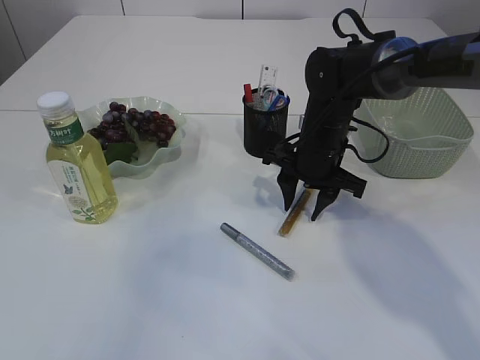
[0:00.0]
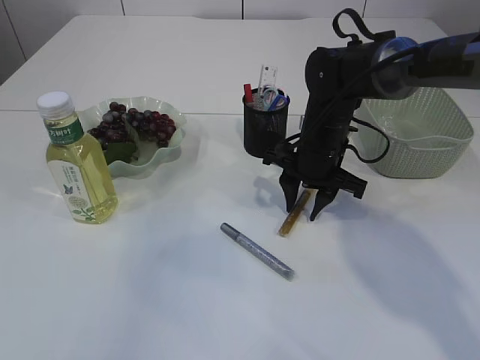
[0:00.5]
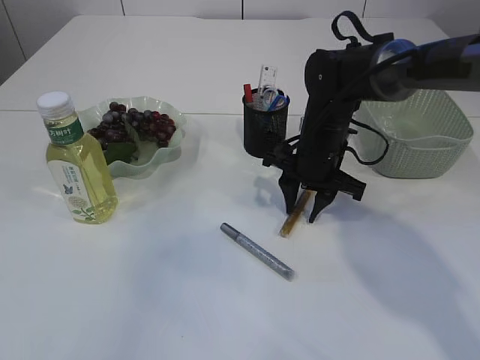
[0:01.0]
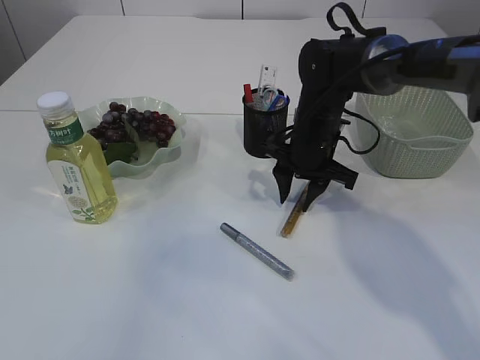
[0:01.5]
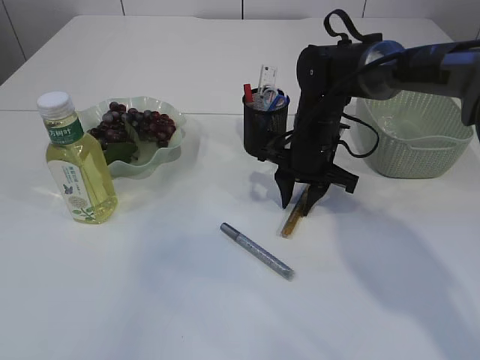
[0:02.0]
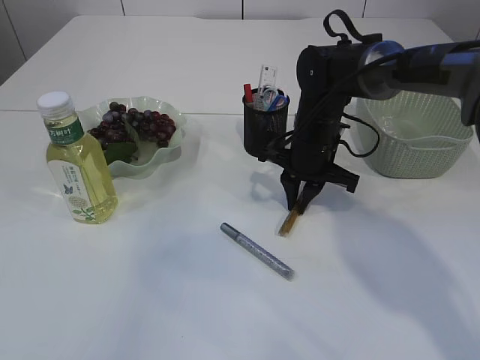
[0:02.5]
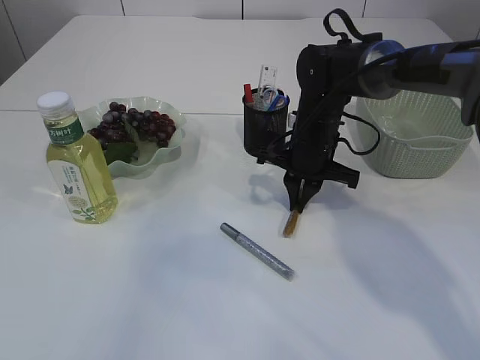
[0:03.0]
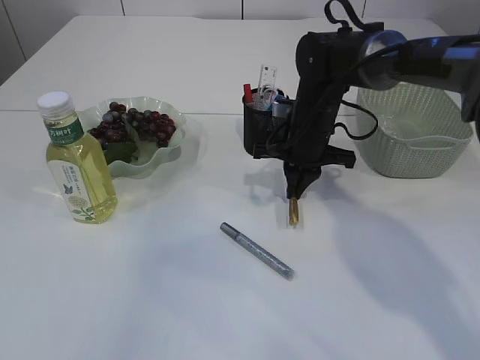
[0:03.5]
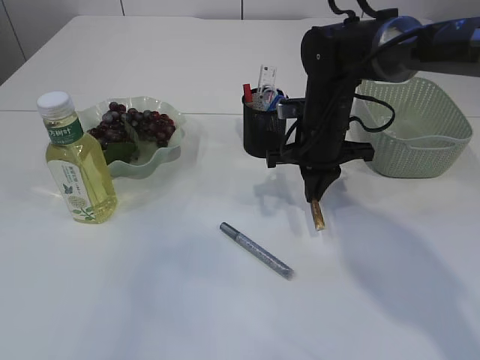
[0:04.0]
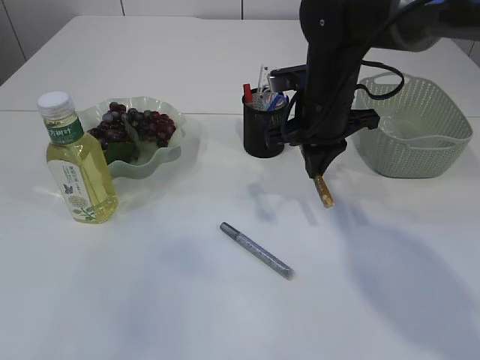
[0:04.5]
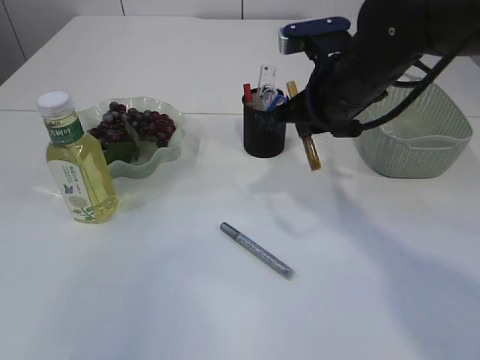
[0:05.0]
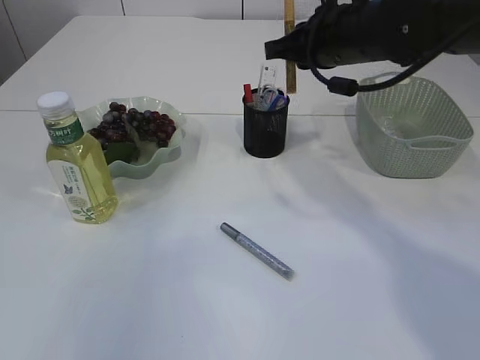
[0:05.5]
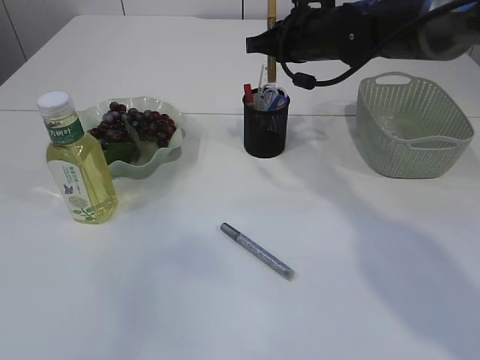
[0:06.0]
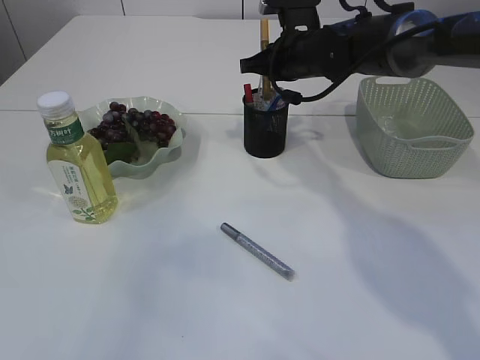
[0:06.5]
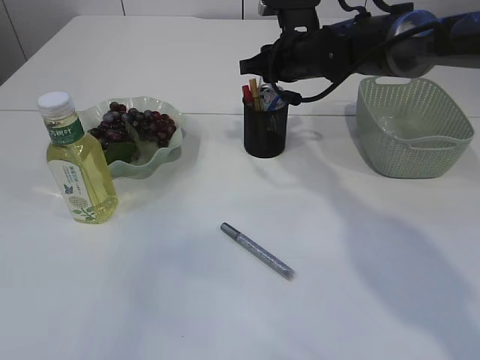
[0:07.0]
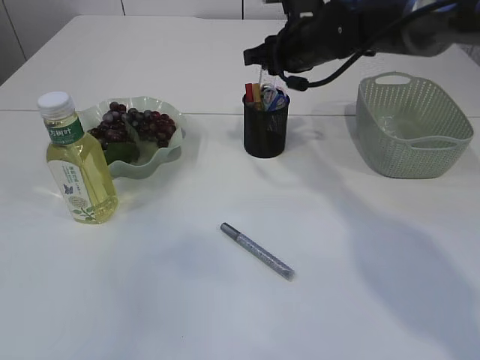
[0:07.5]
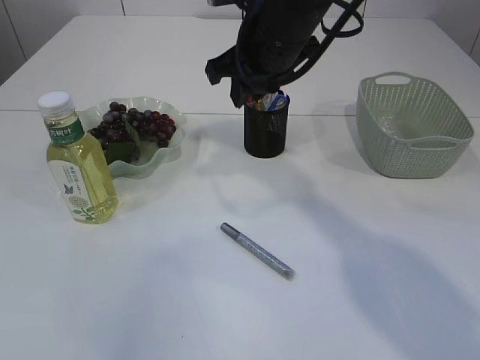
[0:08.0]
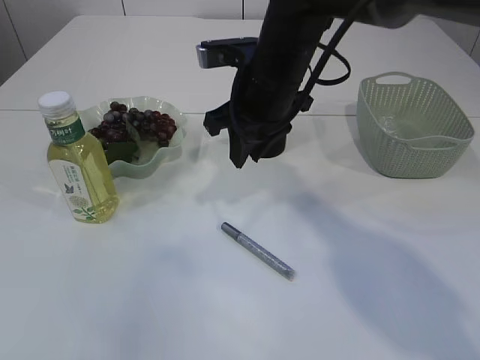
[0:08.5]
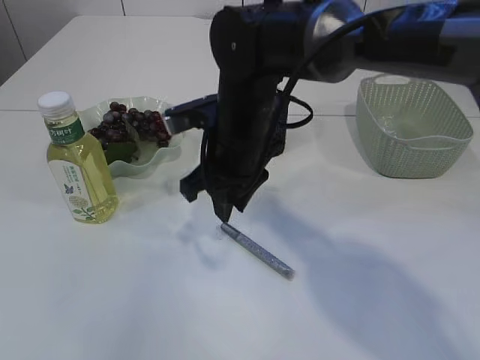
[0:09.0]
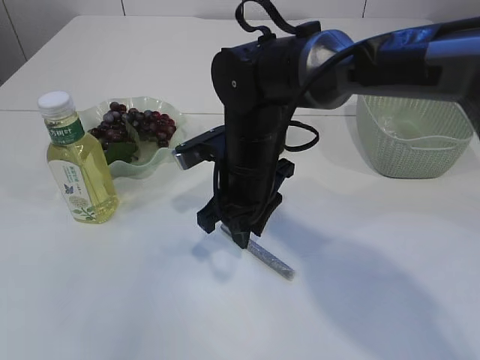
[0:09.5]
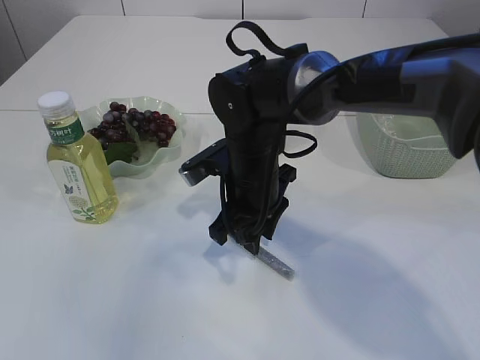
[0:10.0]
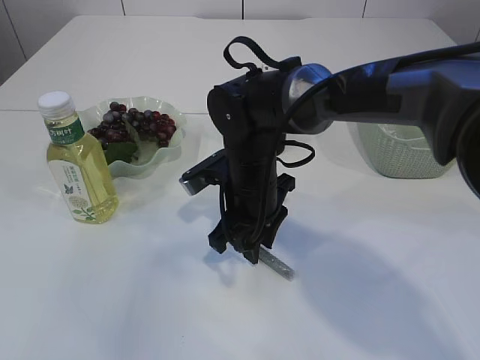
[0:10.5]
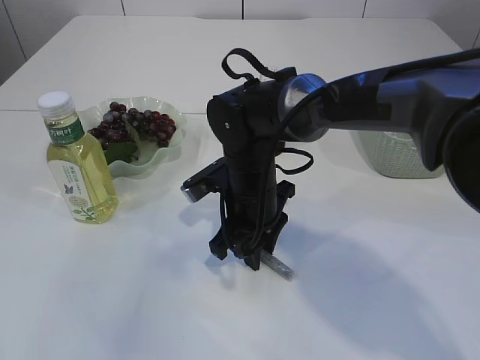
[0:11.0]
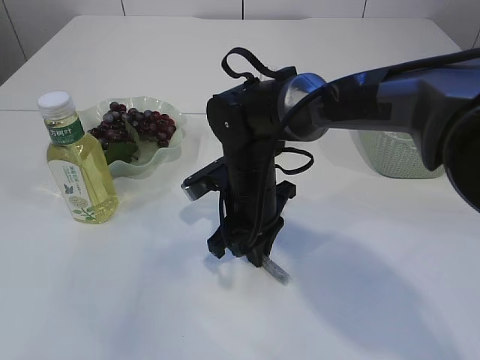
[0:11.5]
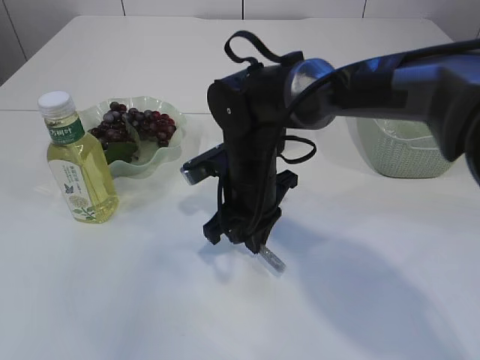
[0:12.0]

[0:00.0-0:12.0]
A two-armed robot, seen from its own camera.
Step, 0:00.0 to 0:04.5: pick up the yellow glue.
Step, 0:05.0 to 0:07.0: place the yellow glue into the pen holder.
0:00.0 to 0:02.0: There are only small adjustments of the grippers.
0:02.0 to 0:04.0: The right gripper closes up.
0:04.0 to 0:06.0: The right gripper moves upward, about 10 cm.
0:06.0 to 0:08.0: The right gripper moves backward and to the left, roughly 10 cm, and opens.
0:08.0 to 0:10.0: The right gripper heads downward, covering roughly 15 cm.
0:10.0 to 0:12.0: The right gripper closes its fingers.

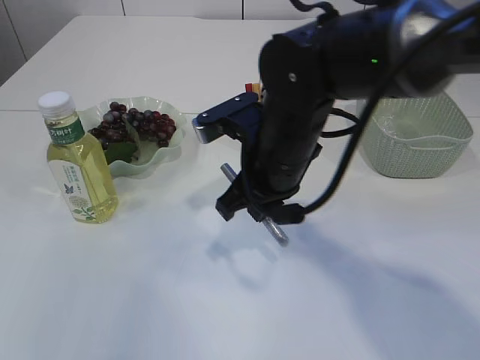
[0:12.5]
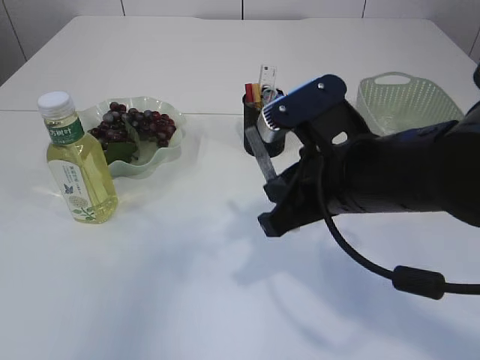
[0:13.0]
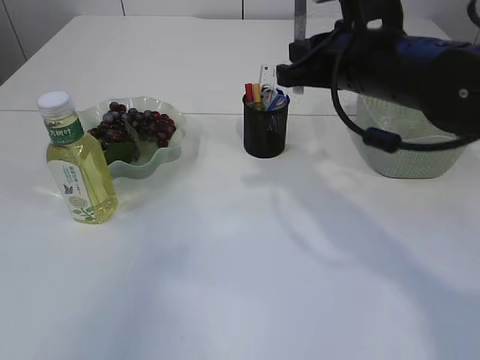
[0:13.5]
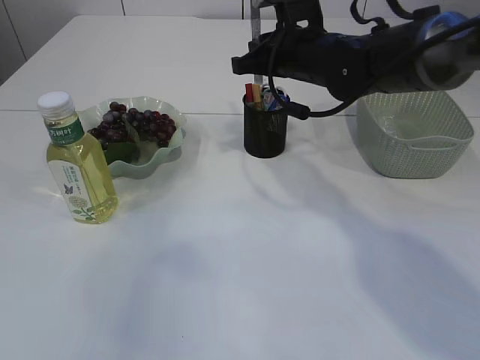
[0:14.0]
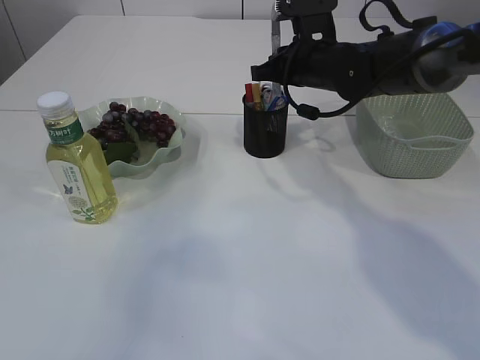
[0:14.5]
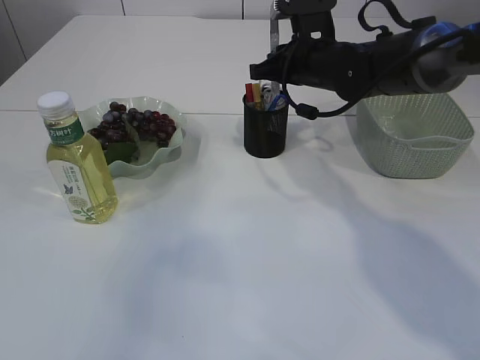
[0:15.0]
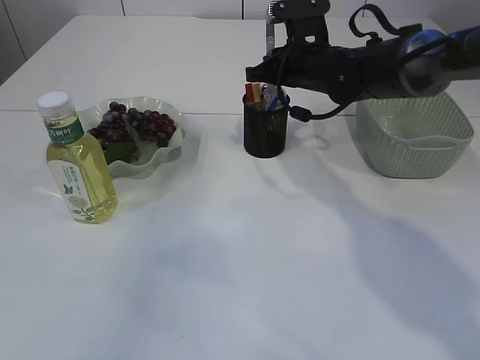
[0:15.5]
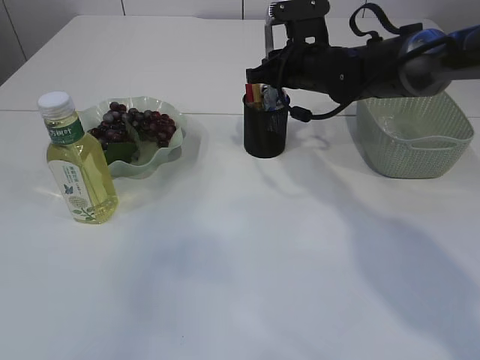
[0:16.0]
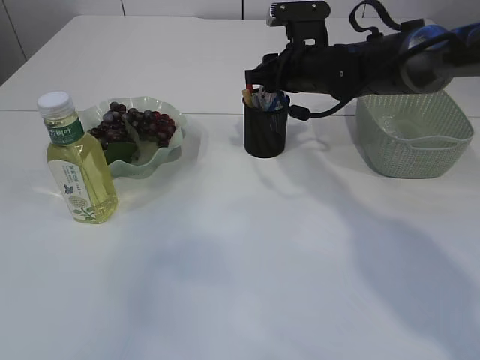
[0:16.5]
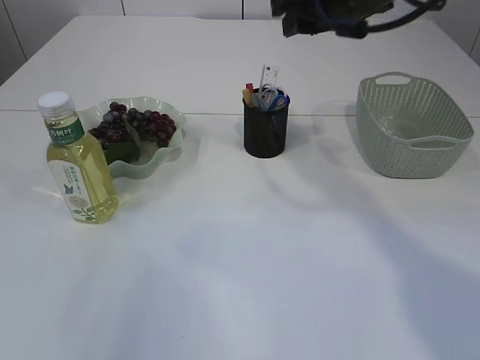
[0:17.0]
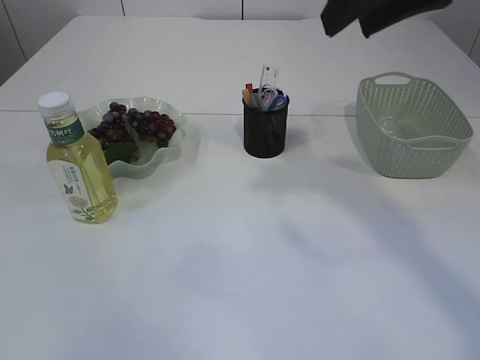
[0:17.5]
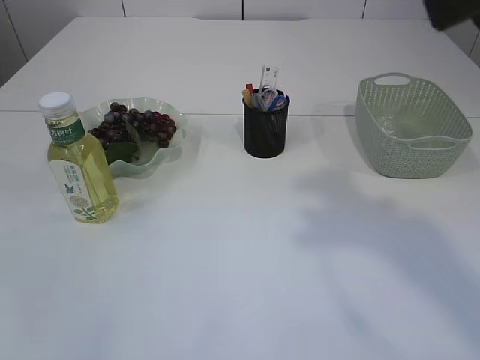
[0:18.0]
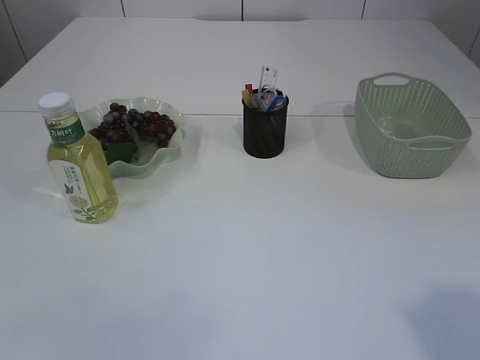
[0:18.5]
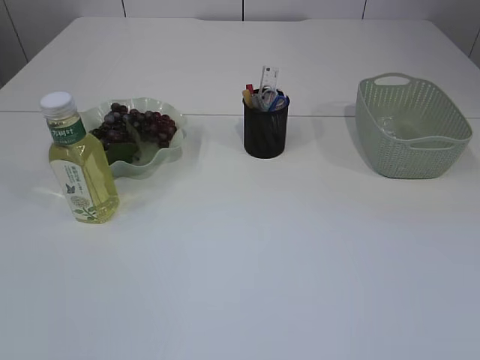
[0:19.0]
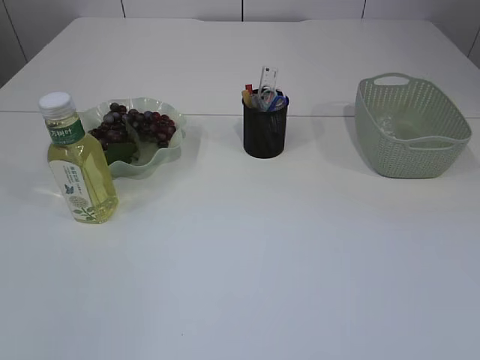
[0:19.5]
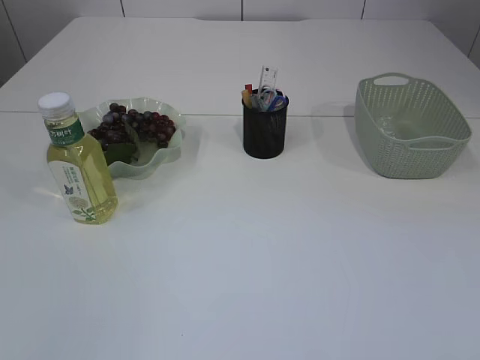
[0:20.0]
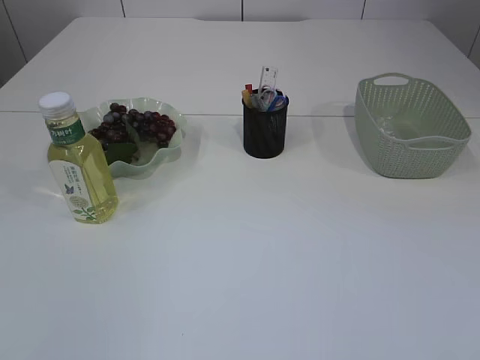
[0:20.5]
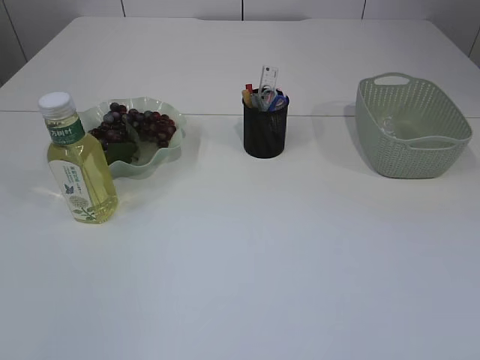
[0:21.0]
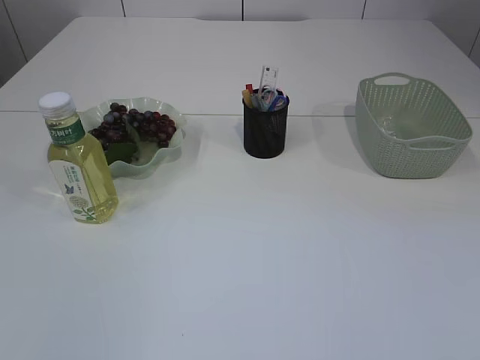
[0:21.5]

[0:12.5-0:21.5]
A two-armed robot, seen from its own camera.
Step, 0:12.5 to 0:16.5: place the silver glue into the pen holder.
0:12.5 to 0:14.5: The right gripper goes approximately 15 cm forward and to the right.
0:14.5 to 0:17.0: The right gripper shifts approximately 15 cm upward and backward, and opens up.
0:17.0 to 0:19.5: The right gripper is displaced backward by approximately 40 cm. Meanwhile the left gripper shifts approximately 20 cm backward and downward.
